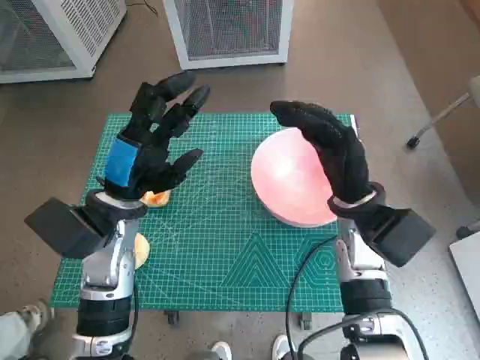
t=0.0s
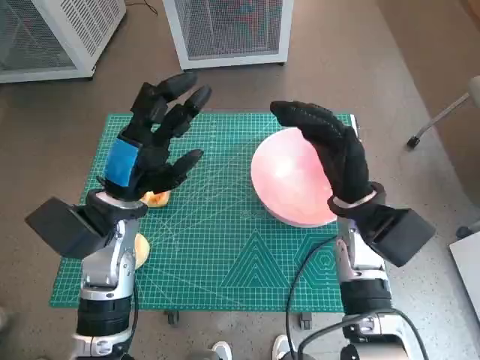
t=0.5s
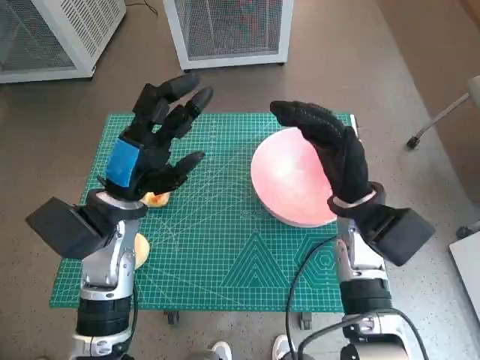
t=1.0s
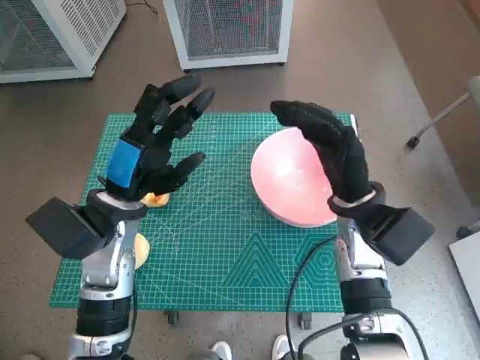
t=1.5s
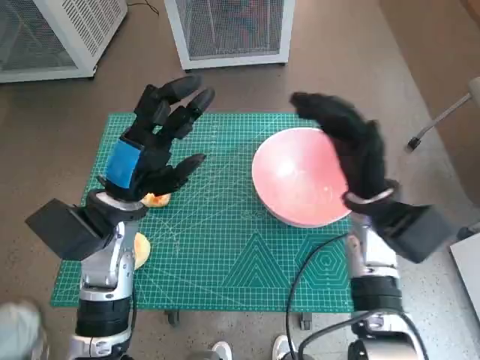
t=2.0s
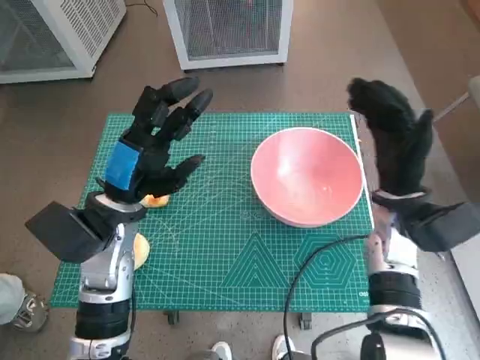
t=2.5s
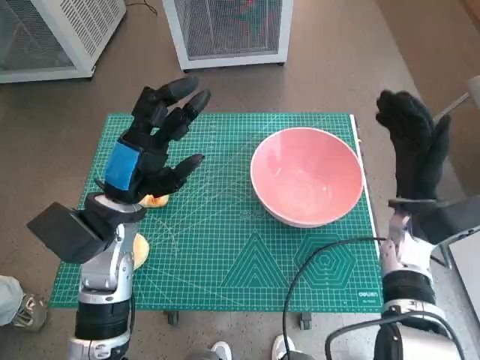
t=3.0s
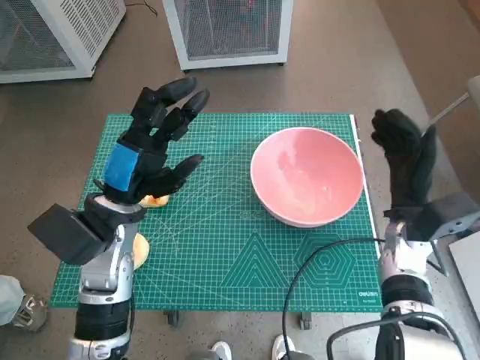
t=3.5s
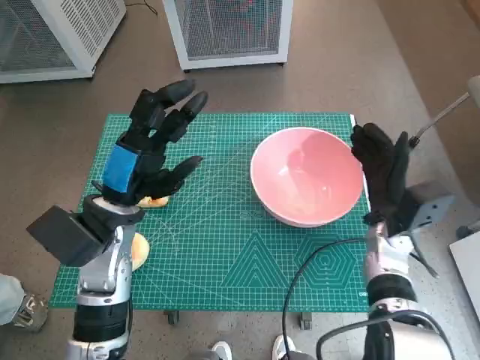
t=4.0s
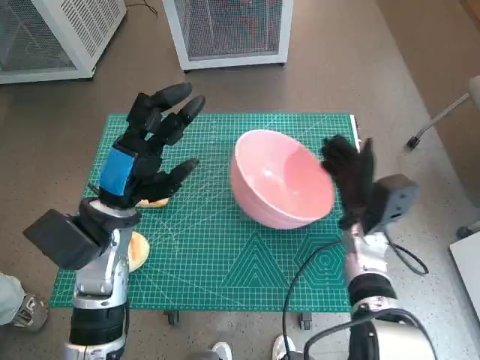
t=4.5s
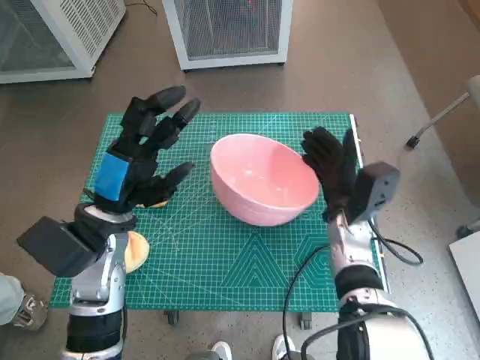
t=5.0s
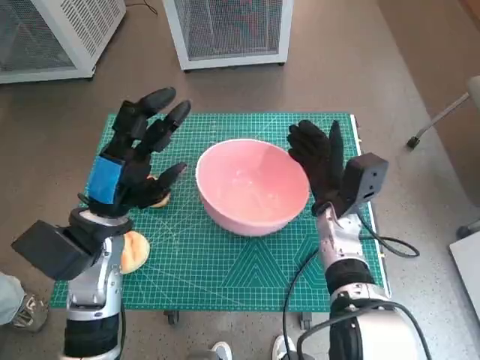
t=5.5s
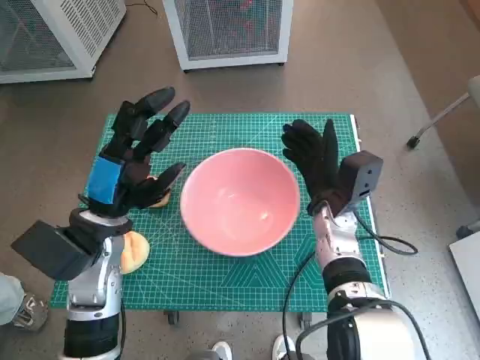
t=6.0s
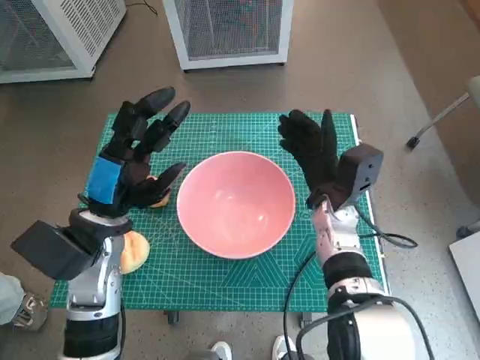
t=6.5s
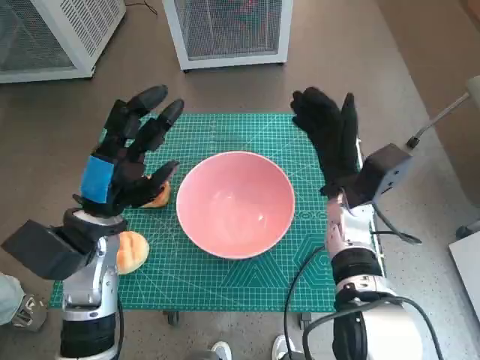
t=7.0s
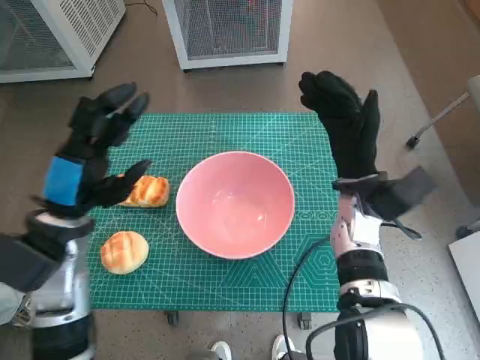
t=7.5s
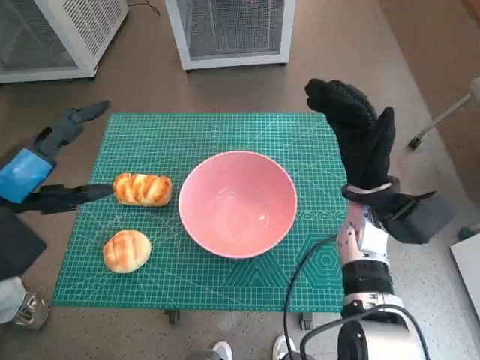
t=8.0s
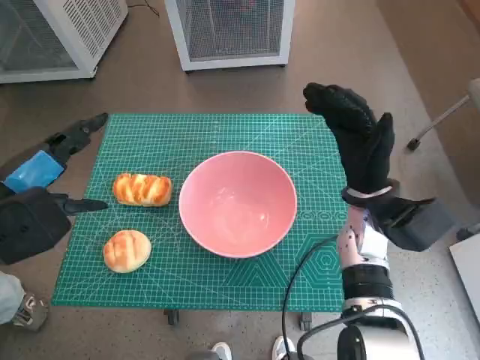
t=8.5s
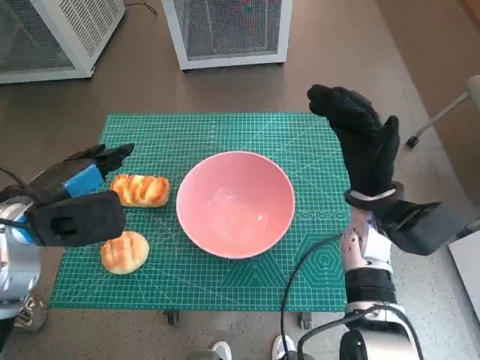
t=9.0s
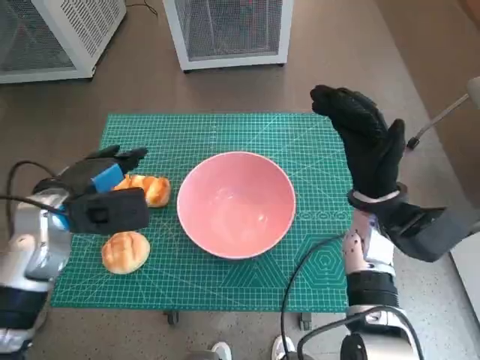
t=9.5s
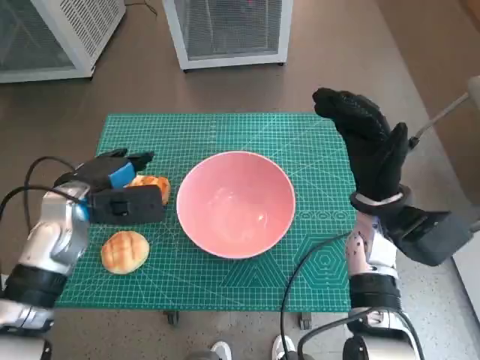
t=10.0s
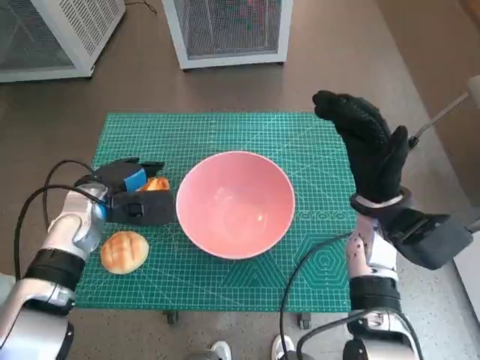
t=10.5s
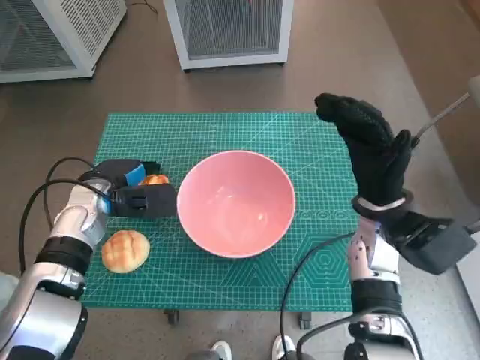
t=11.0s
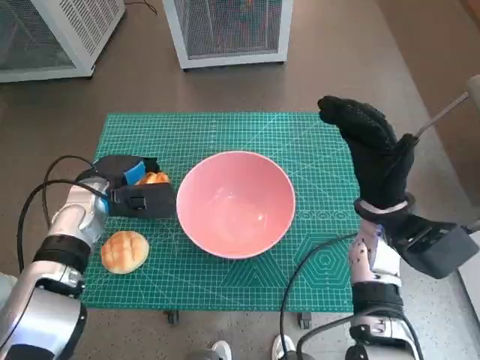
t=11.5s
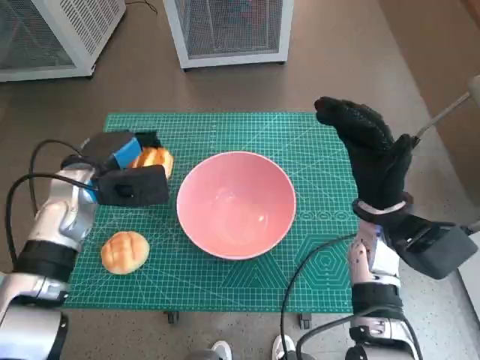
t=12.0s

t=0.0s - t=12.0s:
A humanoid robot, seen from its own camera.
Task of the whole recording: Push the bowl into the center of the table and put the bread into the bowl.
Step, t=0.0s - t=6.0s: Move the pink bowl to the center of table with right hand.
Step, t=6.5s - t=11.0s: Grasp the long bread with left hand.
t=2.0s - t=4.0s: The right hand travels downward by approximately 10 cm.
t=4.0s - t=6.0s: The right hand moves to the left, approximately 10 cm.
t=6.0s - t=8.0s: The left hand moves to the left and upward, approximately 10 cm. The right hand travels upward by about 5 cm.
t=8.0s - t=10.0s: The left hand moves forward and downward, about 10 cm.
t=10.0s - t=12.0s: The hands move only a little.

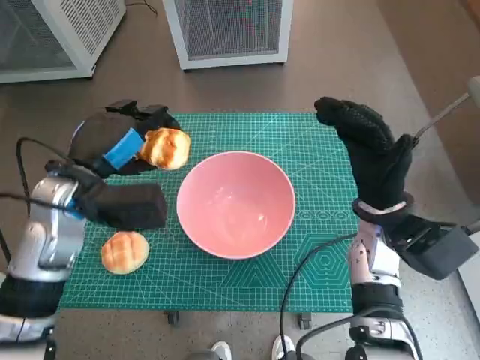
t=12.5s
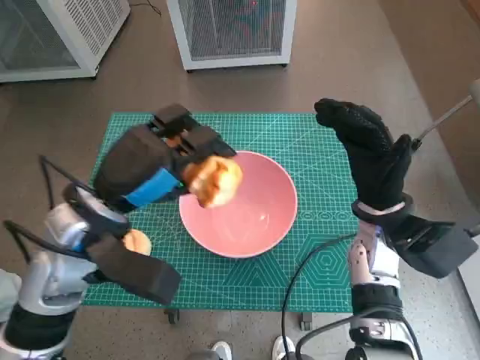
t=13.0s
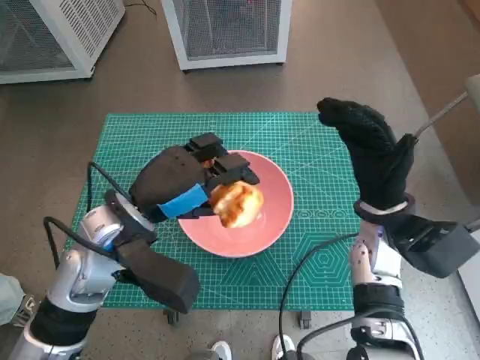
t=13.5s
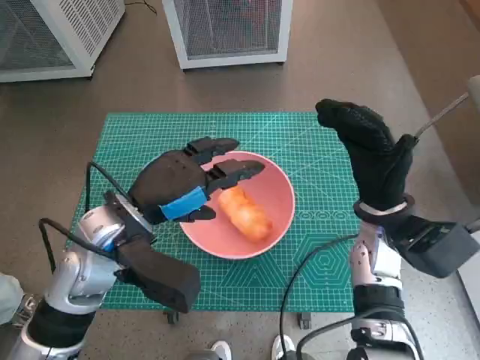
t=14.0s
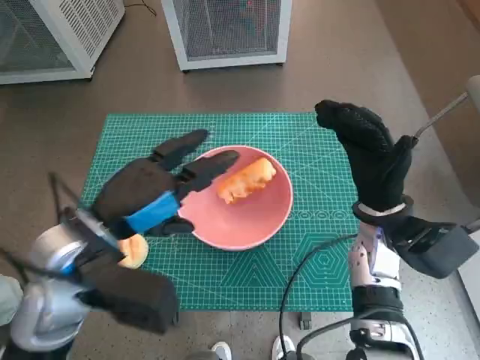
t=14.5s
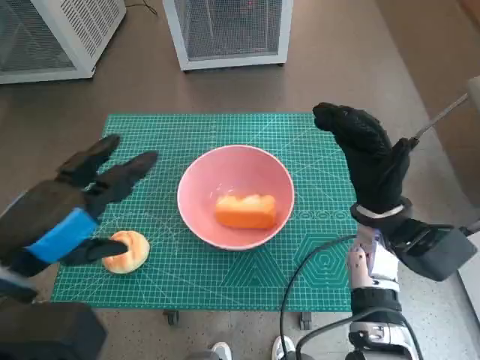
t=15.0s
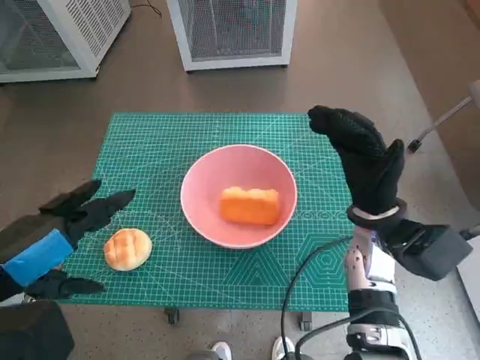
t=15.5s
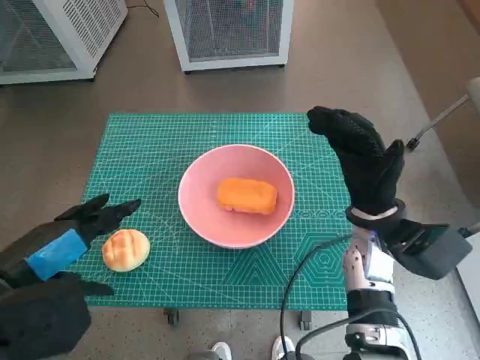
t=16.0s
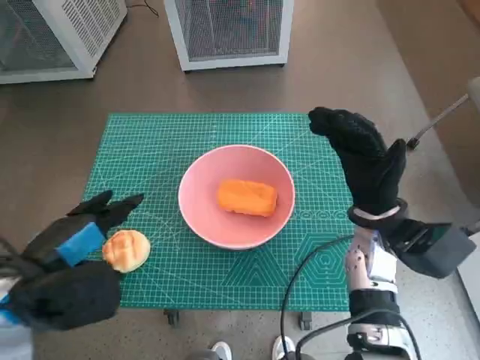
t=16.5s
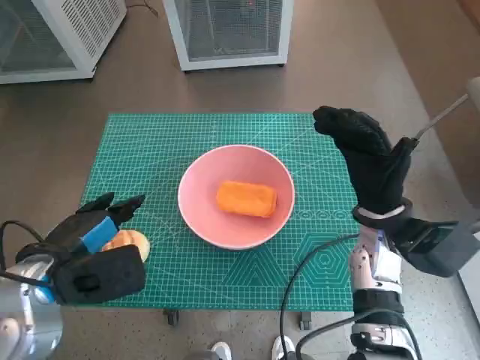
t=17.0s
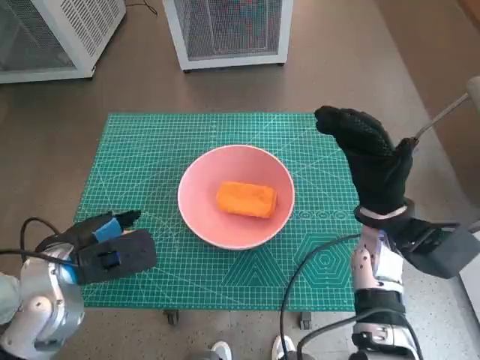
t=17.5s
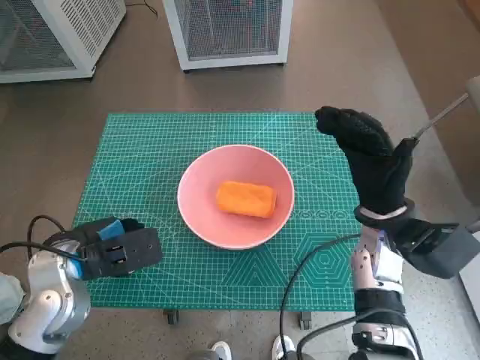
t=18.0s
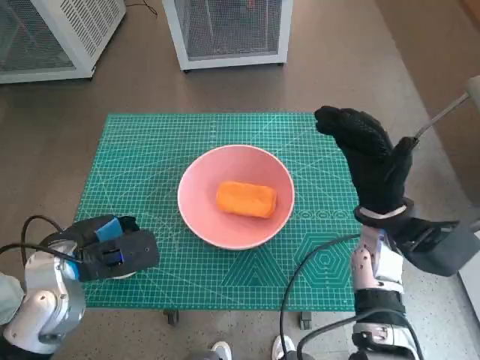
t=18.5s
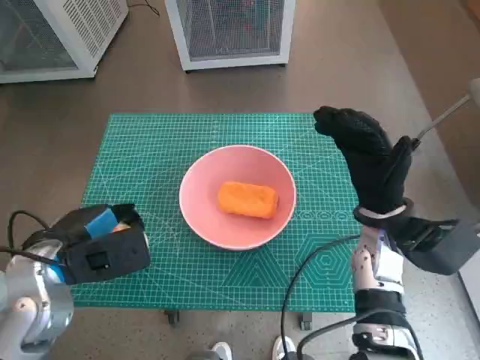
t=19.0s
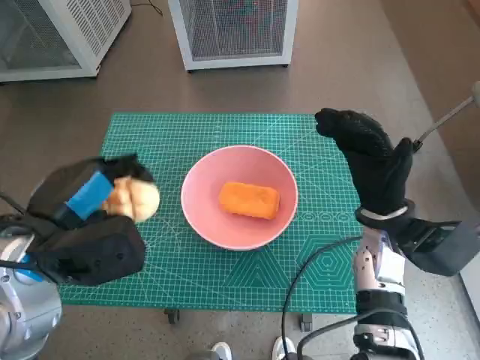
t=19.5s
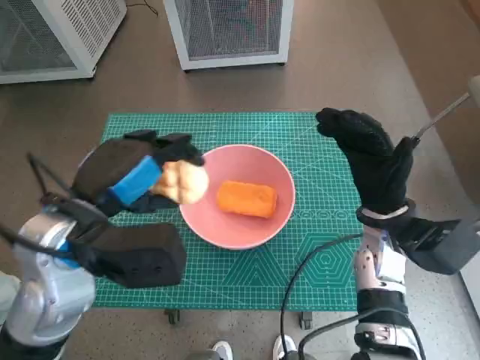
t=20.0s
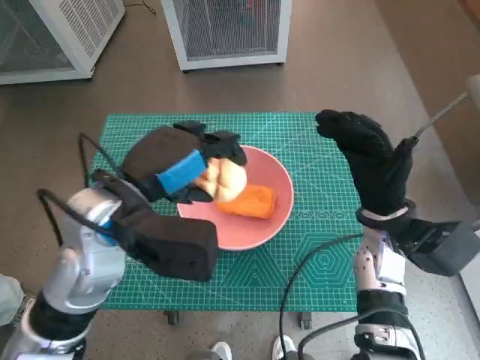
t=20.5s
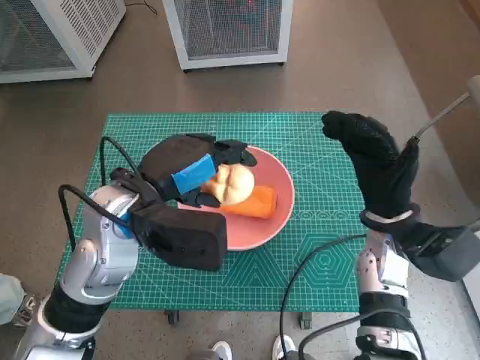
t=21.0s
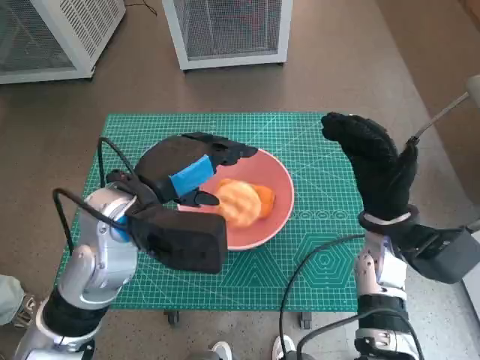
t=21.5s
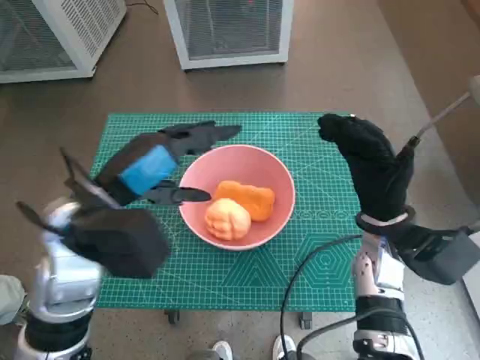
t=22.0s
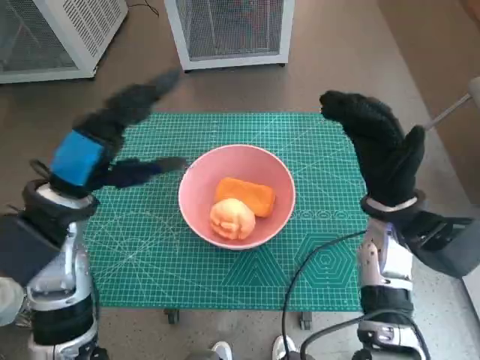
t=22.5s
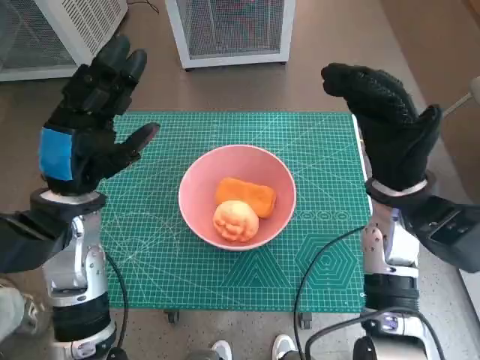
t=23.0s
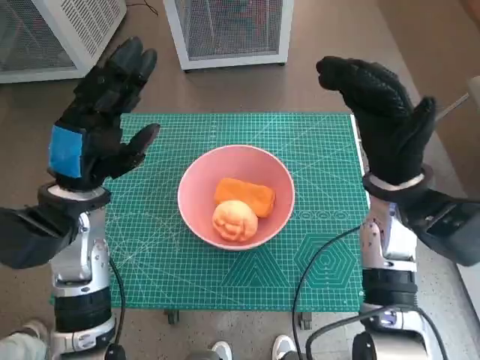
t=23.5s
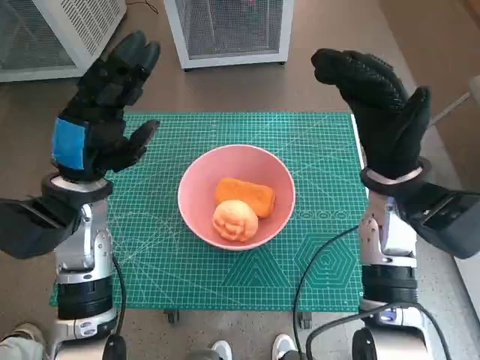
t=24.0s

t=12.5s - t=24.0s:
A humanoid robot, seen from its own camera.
Task of the whole recording: Push the bowl into the center of the table and put the bread into the bowl.
Step, t=14.0s - t=18.0s: Grasp the round bread with left hand.
Step, t=18.5s - t=21.0s: Place the round bread in pink bowl with left hand.
t=12.5s - t=14.5s: The left hand shifts about 5 cm backward.
t=14.5s - t=16.5s: The left hand moves to the left, some 5 cm.
t=16.5s - t=18.5s: The left hand travels downward and forward by about 10 cm.
t=18.5s - t=20.0s: The left hand shifts about 10 cm upward and to the right.
t=22.0s - t=24.0s: The right hand travels upward by some 5 cm. The left hand ends up approximately 5 cm from where it was.

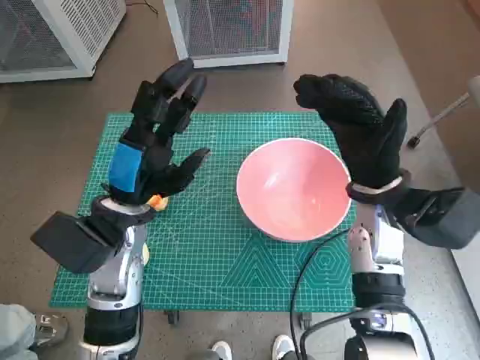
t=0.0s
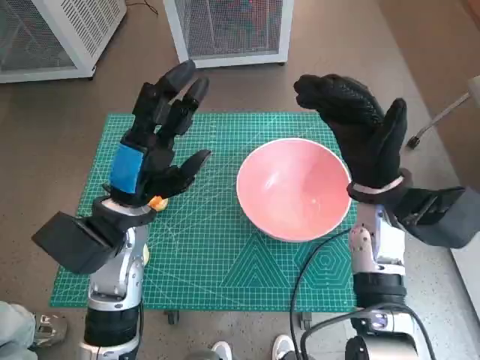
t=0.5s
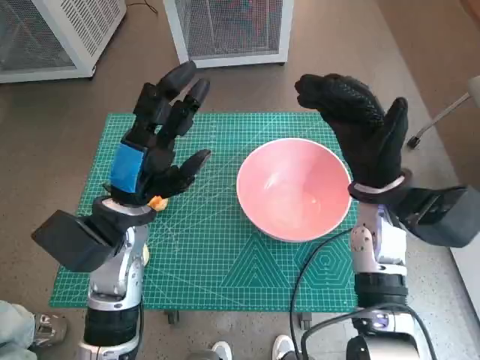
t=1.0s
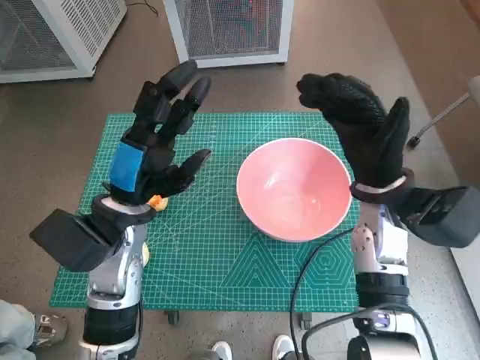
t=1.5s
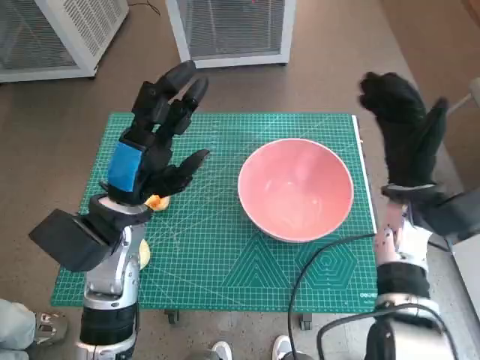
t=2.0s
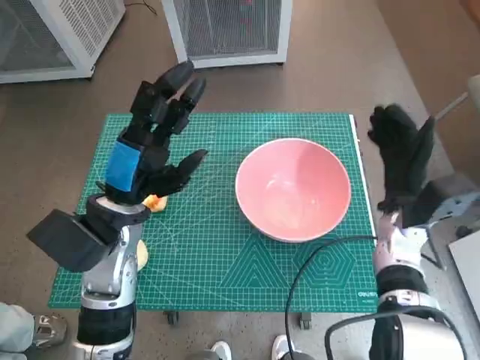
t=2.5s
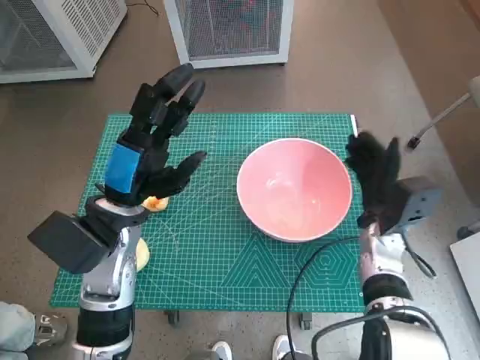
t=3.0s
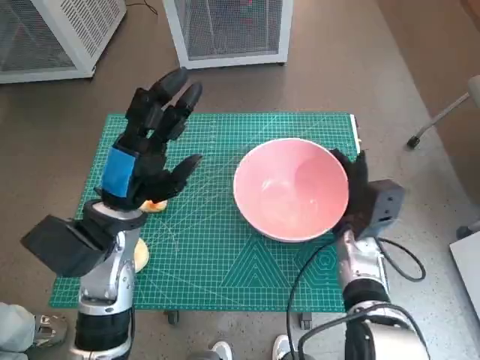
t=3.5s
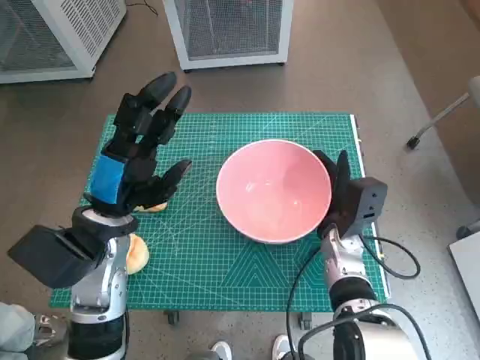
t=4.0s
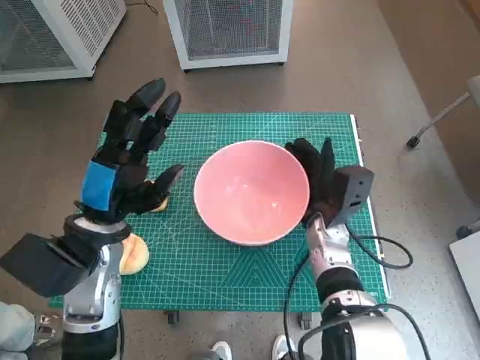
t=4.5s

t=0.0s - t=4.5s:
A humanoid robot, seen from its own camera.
Task of the whole recording: Push the bowl into the center of the table and put the bread into the bowl.
t=2.0s - t=4.5s: The right hand goes approximately 10 cm to the left and downward.
